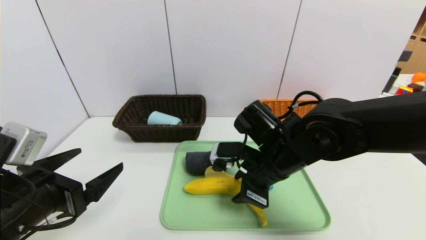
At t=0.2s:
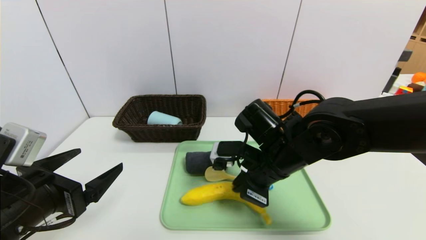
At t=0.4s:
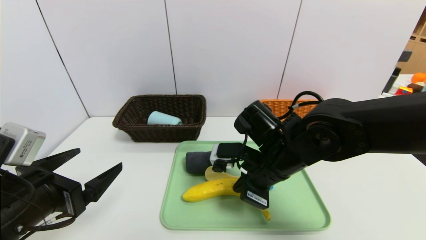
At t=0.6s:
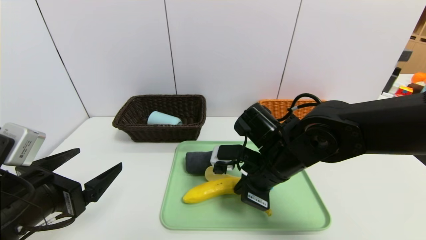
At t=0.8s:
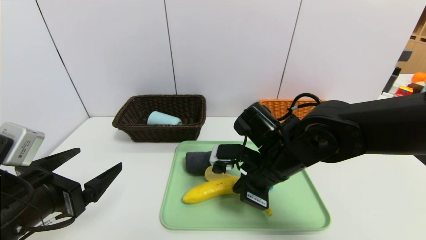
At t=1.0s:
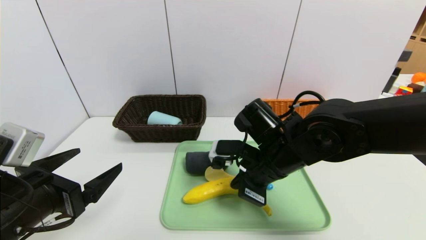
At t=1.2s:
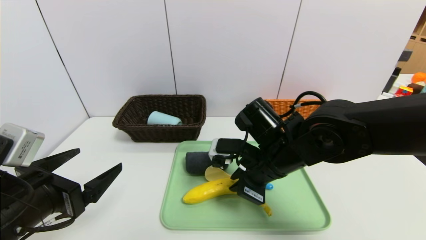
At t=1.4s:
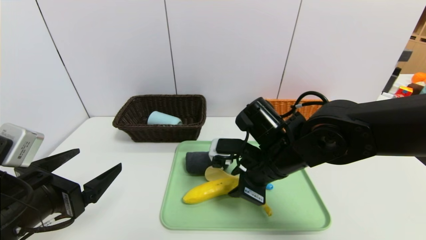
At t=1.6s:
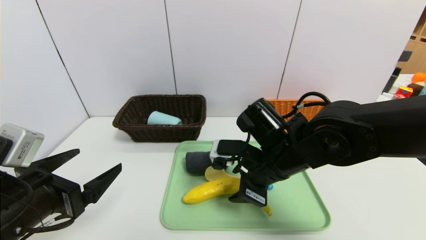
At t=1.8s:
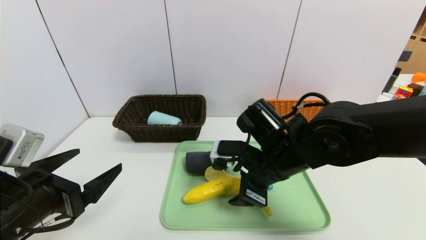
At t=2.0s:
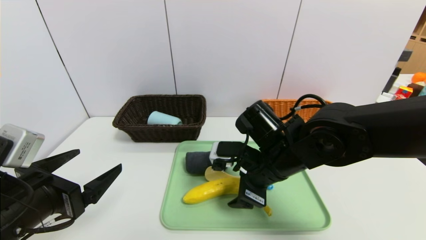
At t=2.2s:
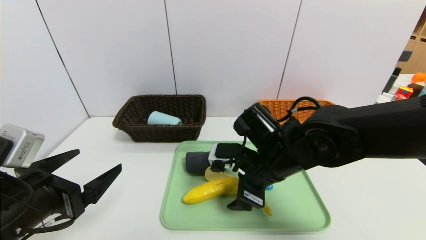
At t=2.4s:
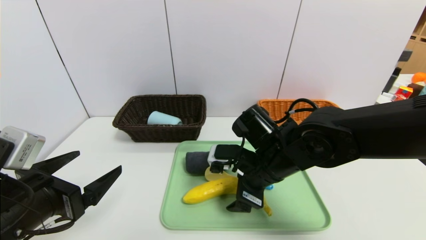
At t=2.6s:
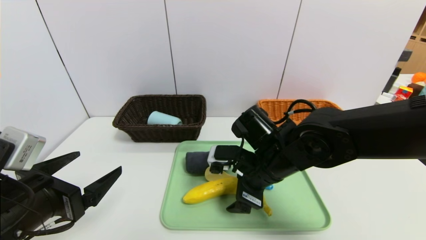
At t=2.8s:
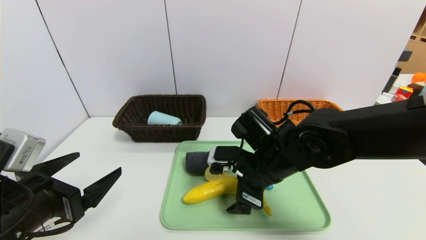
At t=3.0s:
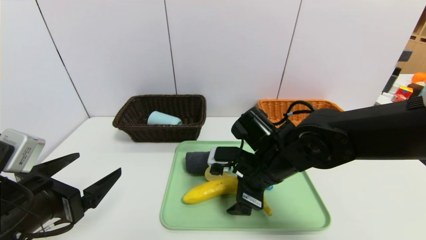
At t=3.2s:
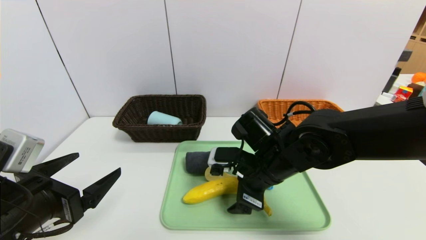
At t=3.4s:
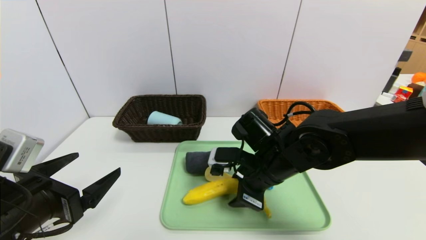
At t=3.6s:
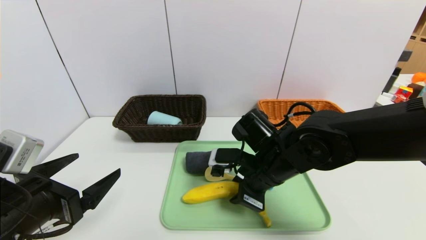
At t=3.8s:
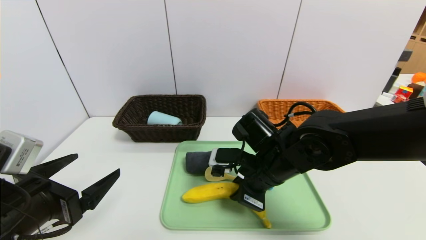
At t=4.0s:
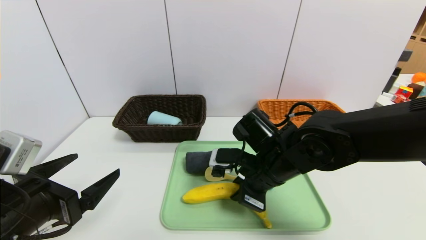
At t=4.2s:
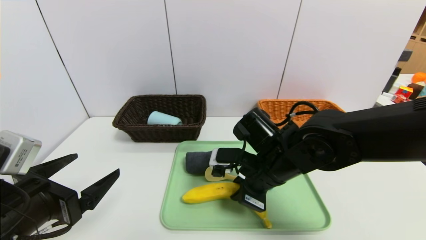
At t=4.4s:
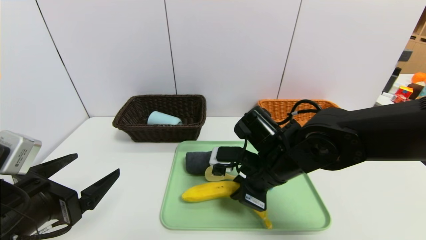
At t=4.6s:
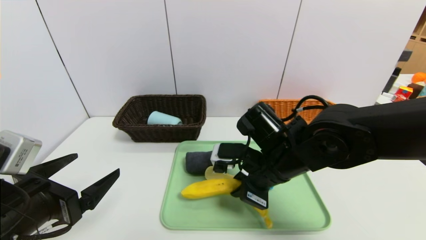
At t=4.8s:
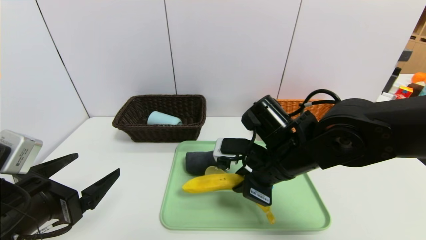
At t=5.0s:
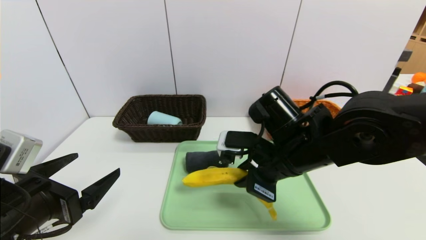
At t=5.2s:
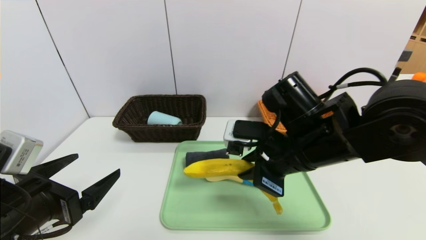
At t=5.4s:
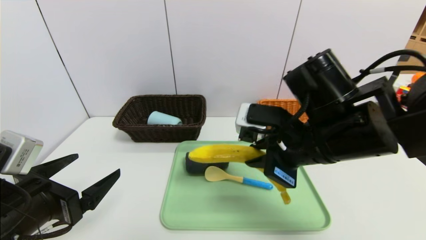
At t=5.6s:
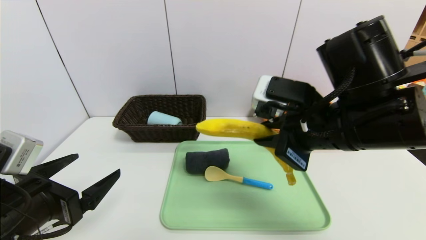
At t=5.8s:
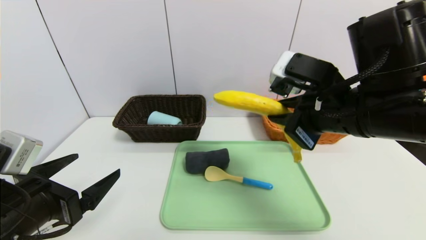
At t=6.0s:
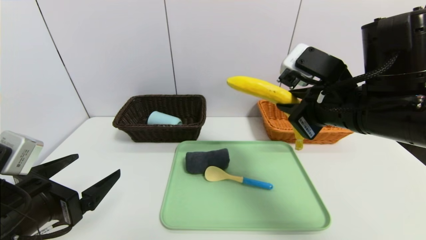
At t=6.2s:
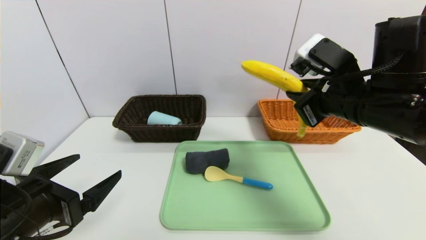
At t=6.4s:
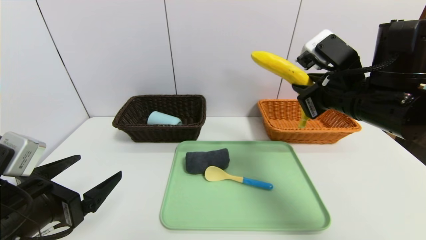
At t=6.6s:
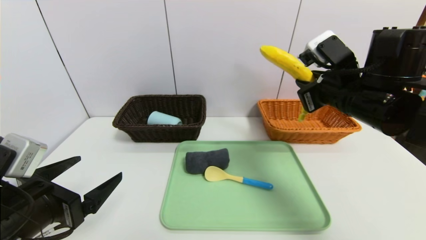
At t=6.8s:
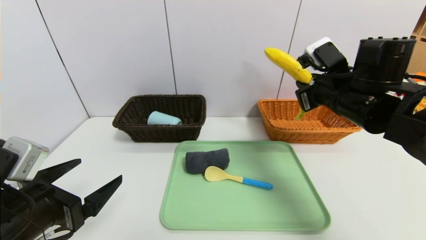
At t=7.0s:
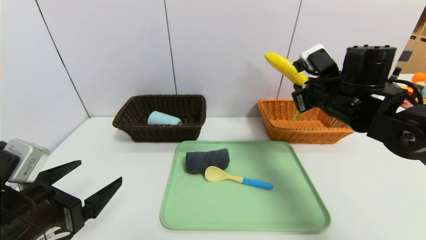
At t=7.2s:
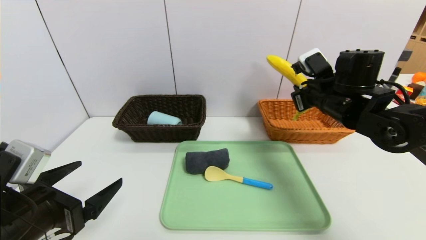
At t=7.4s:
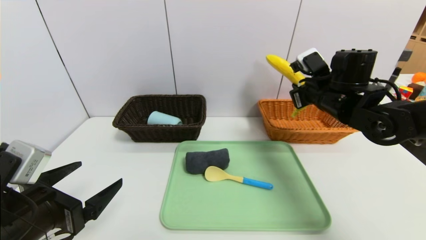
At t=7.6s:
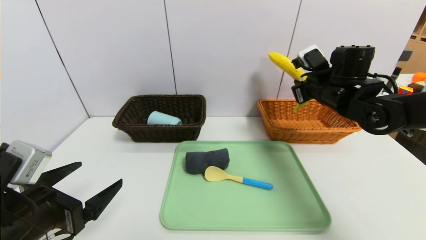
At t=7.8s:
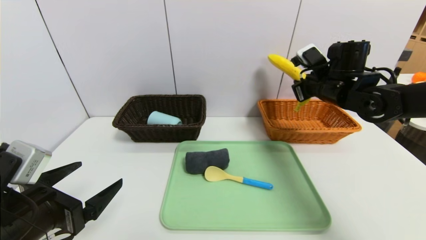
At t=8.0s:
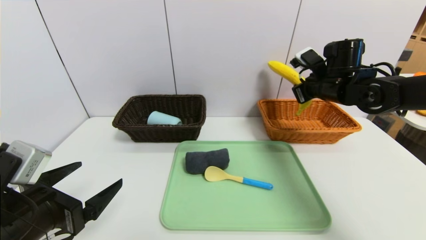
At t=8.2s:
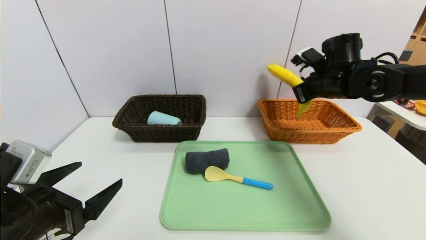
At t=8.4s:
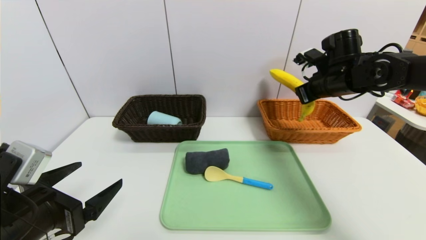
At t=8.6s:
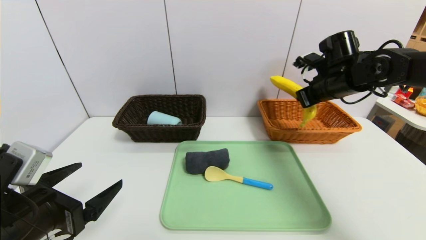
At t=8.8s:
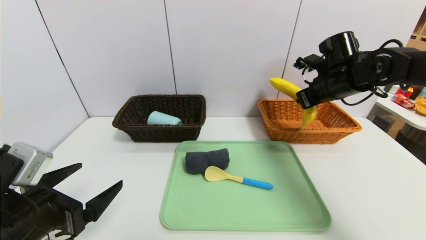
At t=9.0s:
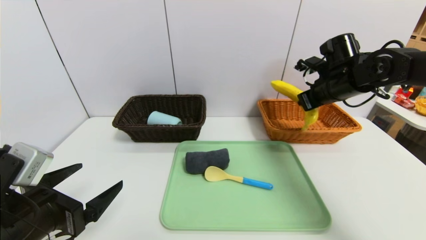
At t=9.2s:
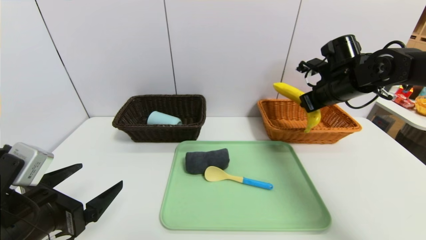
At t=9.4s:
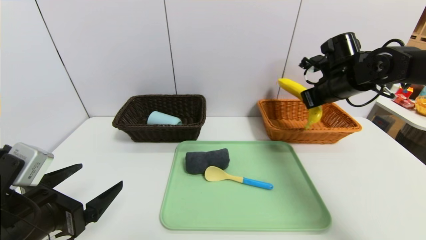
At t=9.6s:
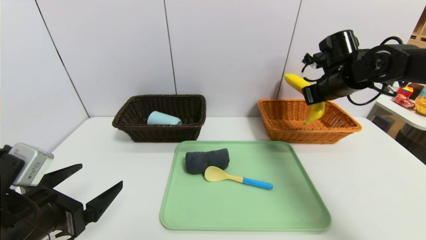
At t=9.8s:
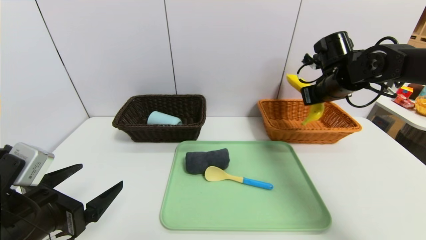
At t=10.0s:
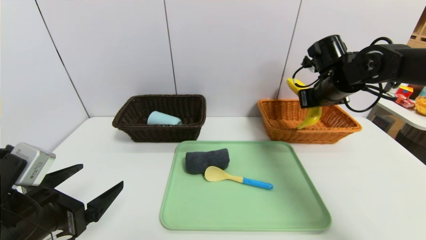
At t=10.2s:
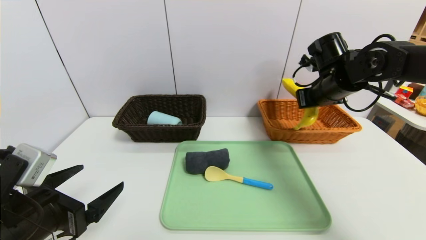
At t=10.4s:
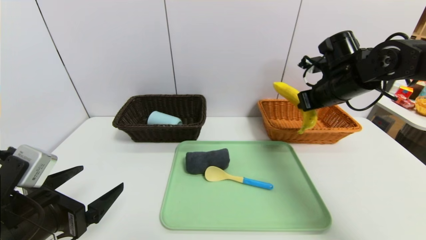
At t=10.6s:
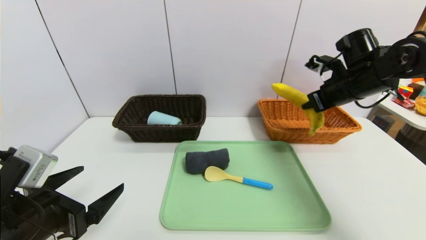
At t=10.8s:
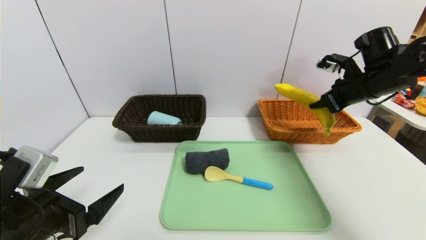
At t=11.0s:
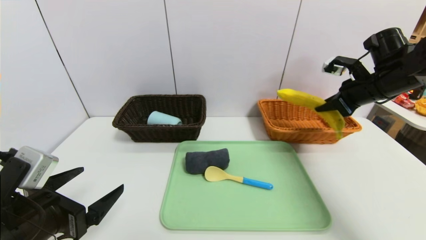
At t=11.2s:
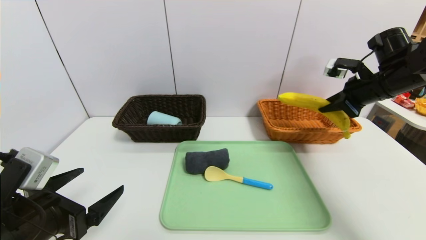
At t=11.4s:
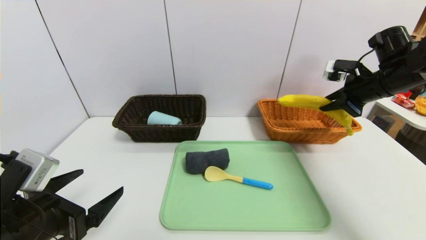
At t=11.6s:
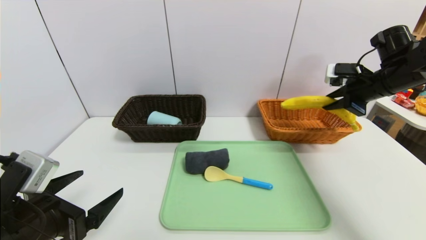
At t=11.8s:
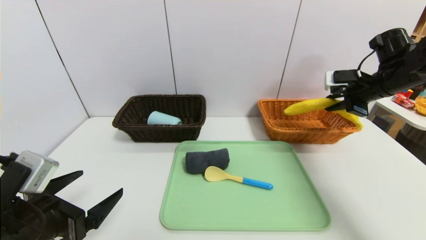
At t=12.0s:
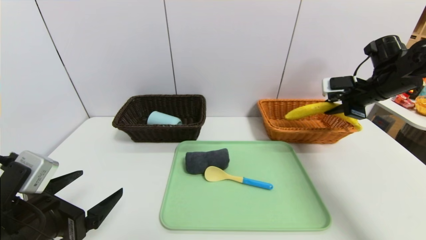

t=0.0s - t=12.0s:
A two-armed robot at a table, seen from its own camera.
Task of the whole recording: place the food in the right basket with the right gripper, and place the non food items in the left basket with the left gripper.
t=0.0s - t=1.6s: Both grippers stay about where they are.
t=1.6s - t=3.0s: The right gripper opens its fingers.
t=3.0s - t=4.4s: The right gripper closes its fingers.
t=4.4s - t=6.0s: The right gripper travels upward and to the right by some 15 cm.
t=6.0s - t=7.6s: The right gripper shifts roughly 15 cm forward and to the right.
t=10.4s - t=12.0s: The right gripper travels to the right by about 10 cm.

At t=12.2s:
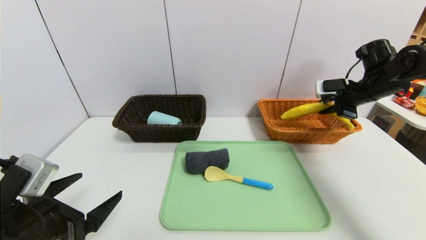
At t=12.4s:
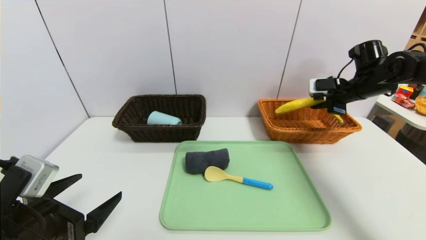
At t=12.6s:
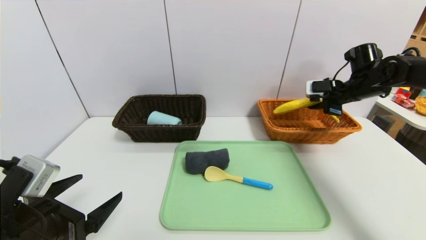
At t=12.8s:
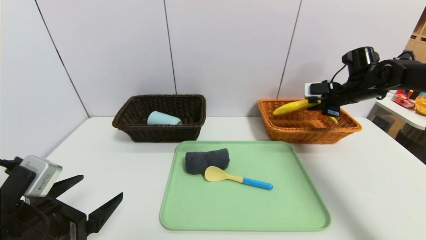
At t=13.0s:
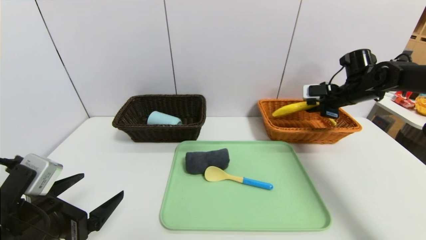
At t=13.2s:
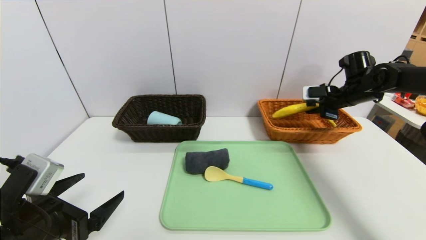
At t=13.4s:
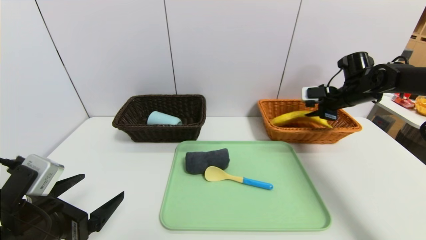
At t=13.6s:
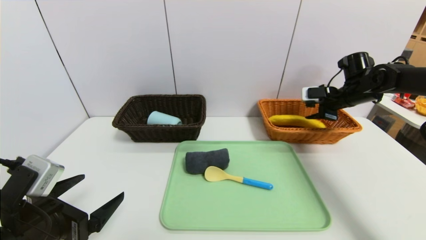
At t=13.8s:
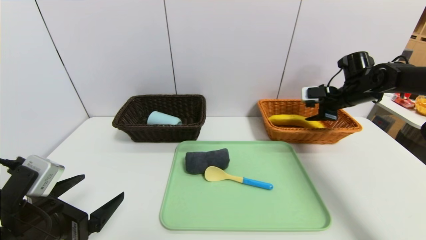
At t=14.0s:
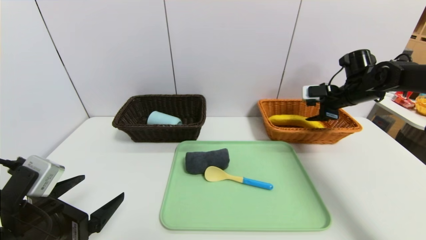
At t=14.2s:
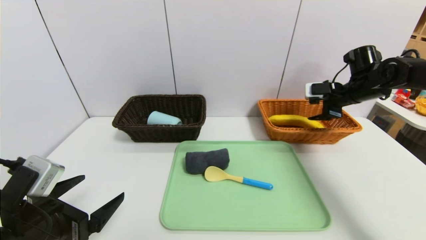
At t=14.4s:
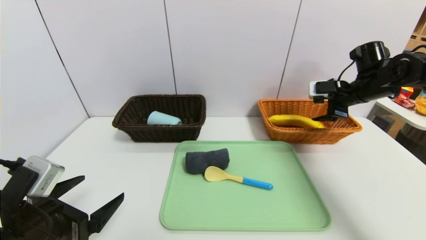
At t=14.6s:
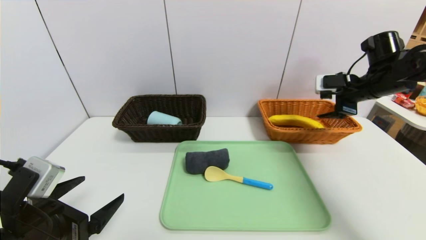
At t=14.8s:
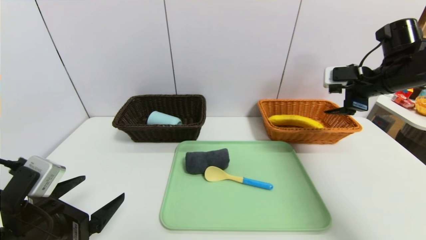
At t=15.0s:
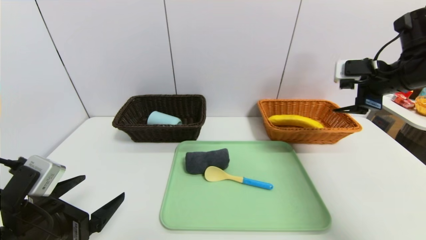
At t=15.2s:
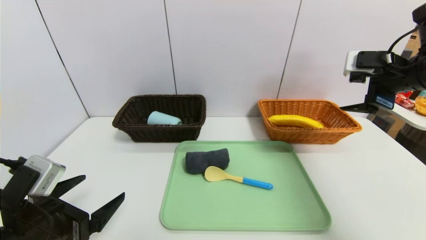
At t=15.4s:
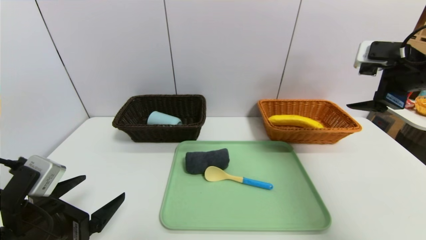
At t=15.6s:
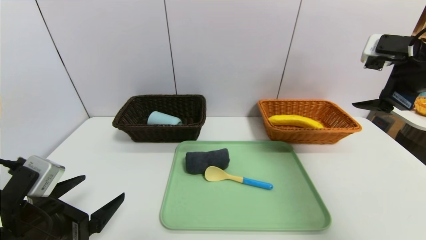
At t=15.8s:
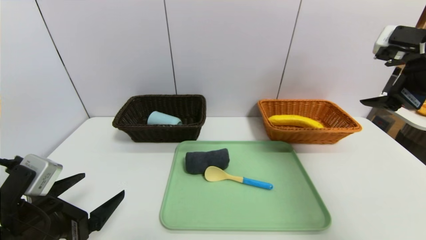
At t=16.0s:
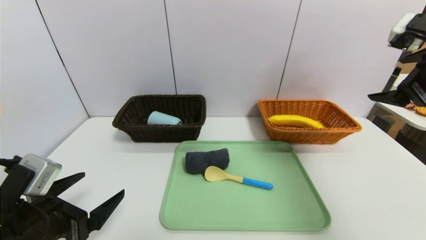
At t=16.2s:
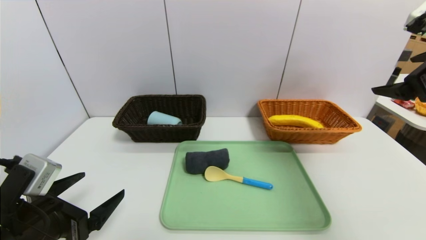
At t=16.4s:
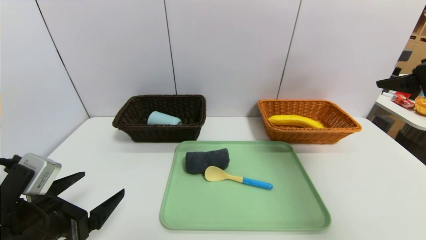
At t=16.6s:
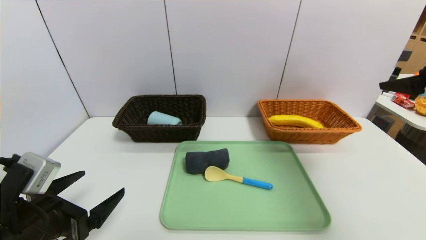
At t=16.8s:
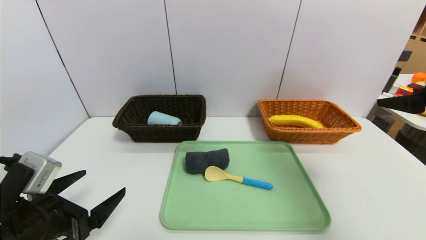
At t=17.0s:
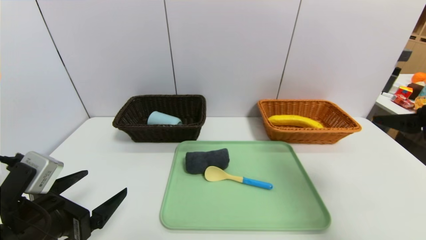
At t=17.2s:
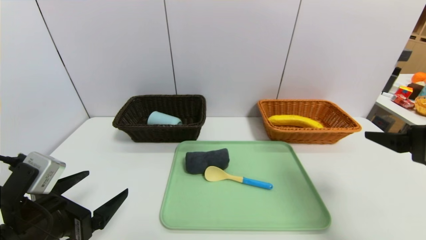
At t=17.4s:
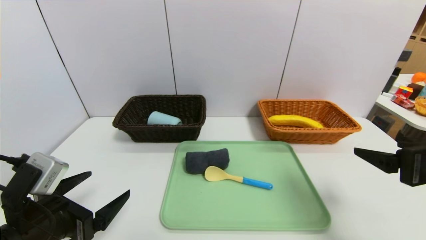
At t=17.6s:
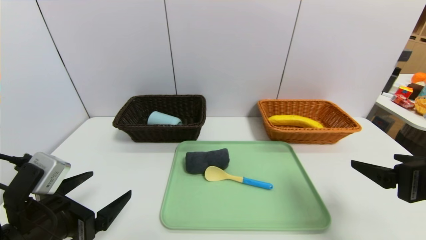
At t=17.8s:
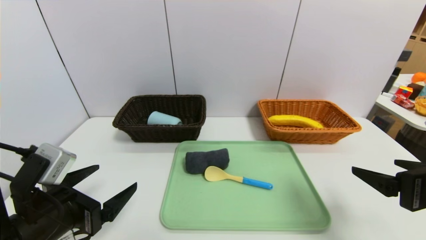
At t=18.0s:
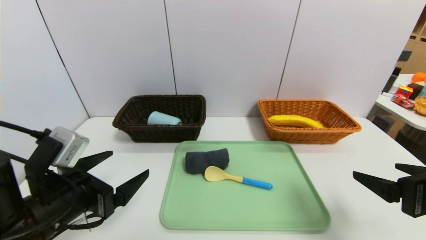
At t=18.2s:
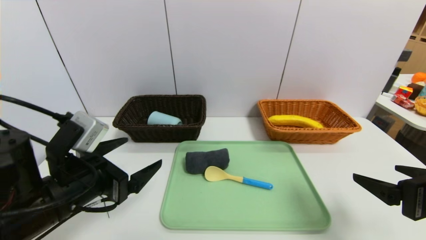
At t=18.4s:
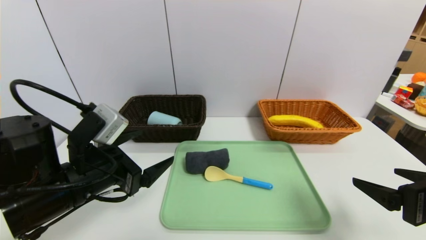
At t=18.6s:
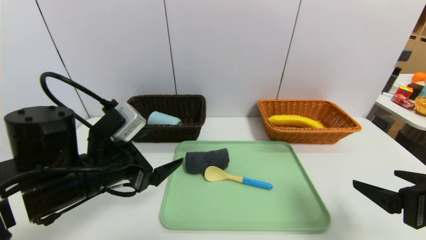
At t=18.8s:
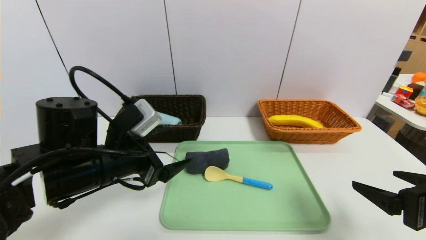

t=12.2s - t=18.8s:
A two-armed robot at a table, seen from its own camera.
Task of the whole recording: place the food in the right basket with the right gripper, and place the non food items in the left basket with the left gripper.
Step, t=12.2s - t=14.4s: Grasp the banana and put it in the right basket.
t=12.2s - t=13.8s: The right gripper opens.
t=13.8s - t=15.4s: The right gripper travels backward and upward by roughly 20 cm.
t=15.4s - t=17.2s: The right gripper is displaced backward and downward by roughly 15 cm.
t=17.2s - t=18.8s: The left gripper heads forward and to the right, covering approximately 10 cm; the right gripper moves downward, approximately 5 cm.
